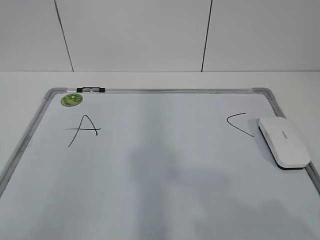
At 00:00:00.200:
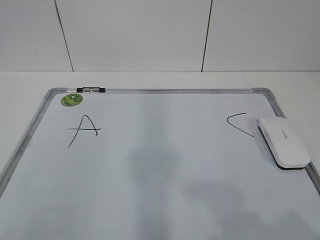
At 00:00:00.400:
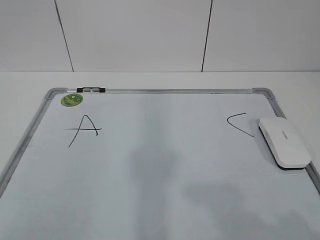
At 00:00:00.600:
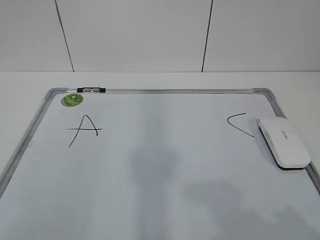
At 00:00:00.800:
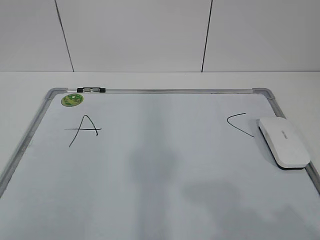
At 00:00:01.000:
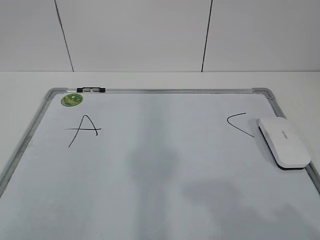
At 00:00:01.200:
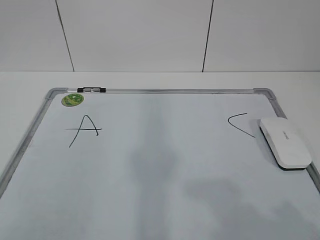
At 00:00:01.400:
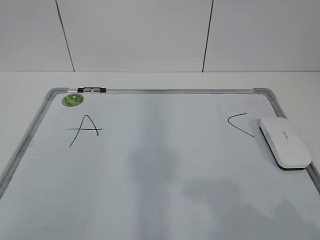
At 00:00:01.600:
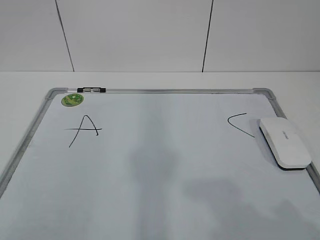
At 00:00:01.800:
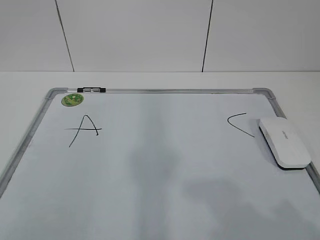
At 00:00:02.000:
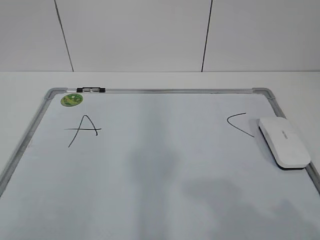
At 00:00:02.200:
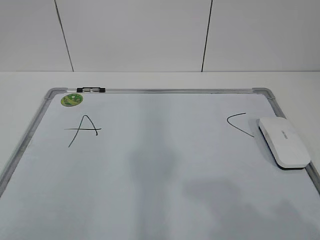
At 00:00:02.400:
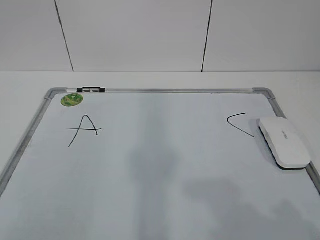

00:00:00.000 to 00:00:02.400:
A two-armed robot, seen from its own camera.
Task of the whole recording: pick up the eraser on the blackboard and erase the letter "B".
00:00:01.200 to 00:00:02.400: The two grippers keep their place.
